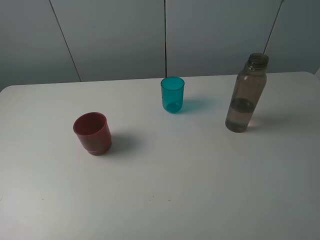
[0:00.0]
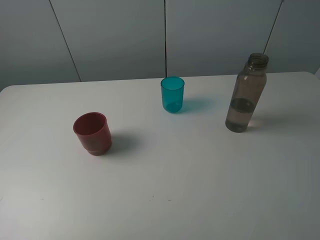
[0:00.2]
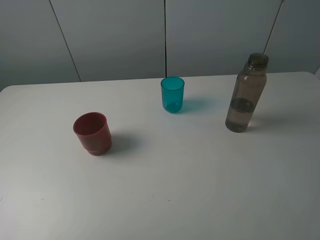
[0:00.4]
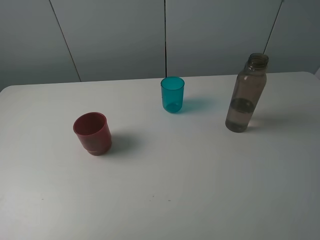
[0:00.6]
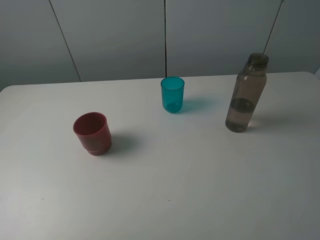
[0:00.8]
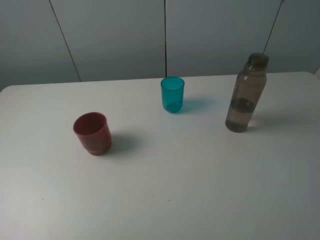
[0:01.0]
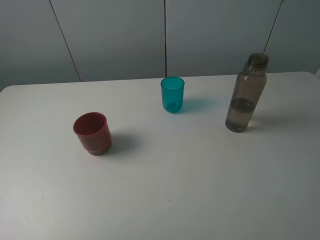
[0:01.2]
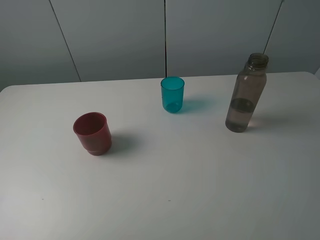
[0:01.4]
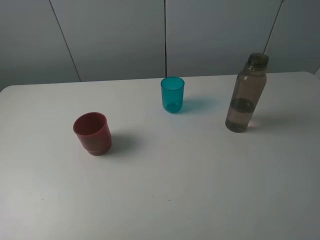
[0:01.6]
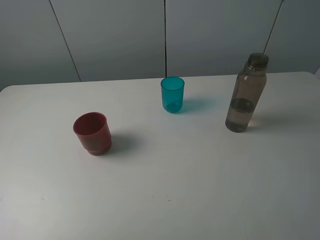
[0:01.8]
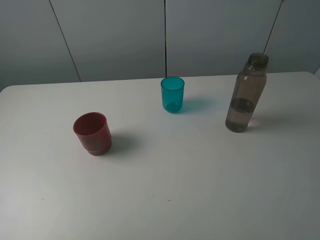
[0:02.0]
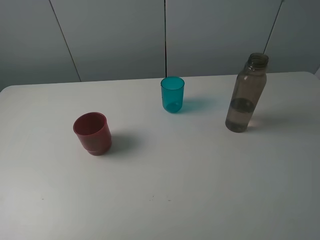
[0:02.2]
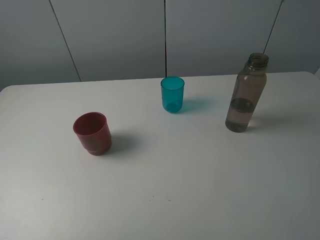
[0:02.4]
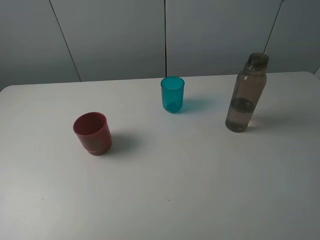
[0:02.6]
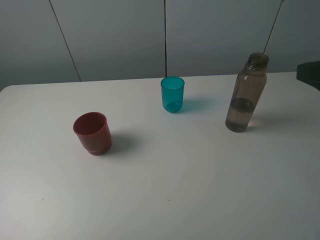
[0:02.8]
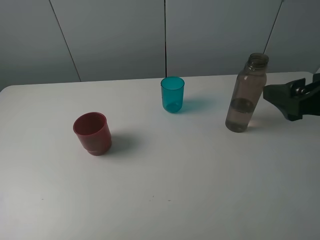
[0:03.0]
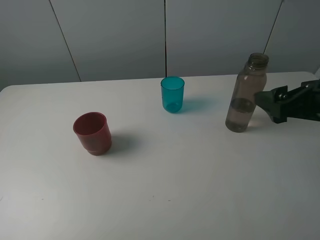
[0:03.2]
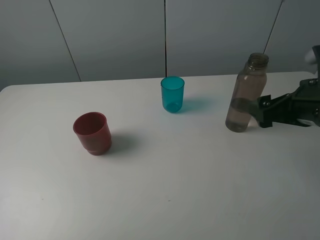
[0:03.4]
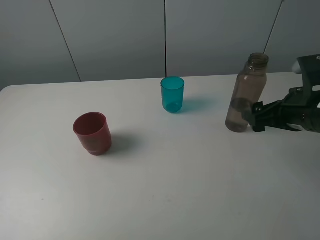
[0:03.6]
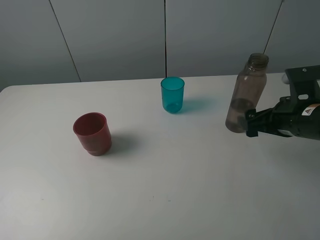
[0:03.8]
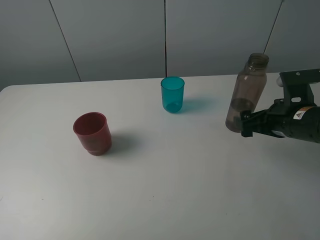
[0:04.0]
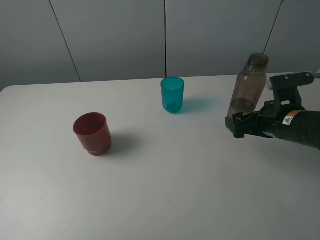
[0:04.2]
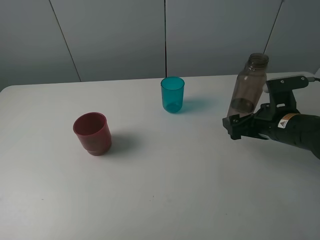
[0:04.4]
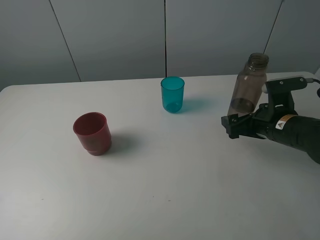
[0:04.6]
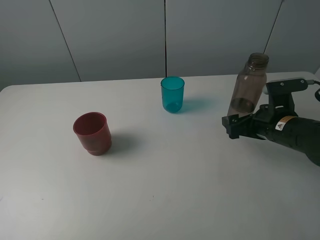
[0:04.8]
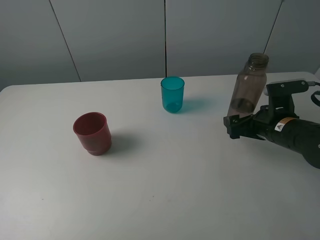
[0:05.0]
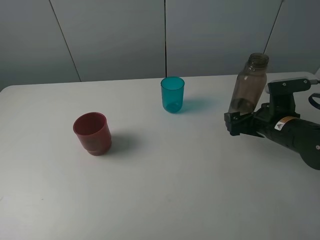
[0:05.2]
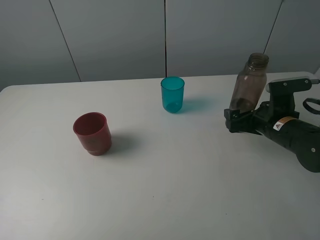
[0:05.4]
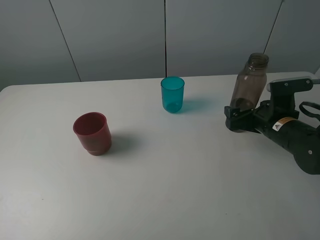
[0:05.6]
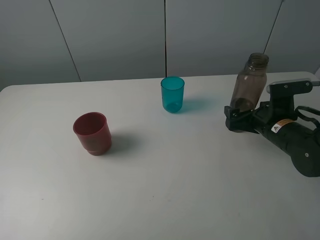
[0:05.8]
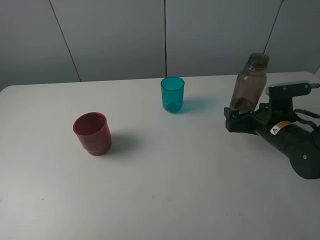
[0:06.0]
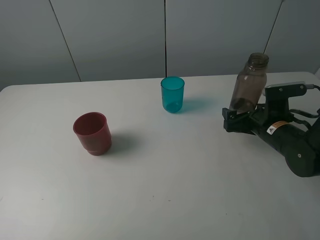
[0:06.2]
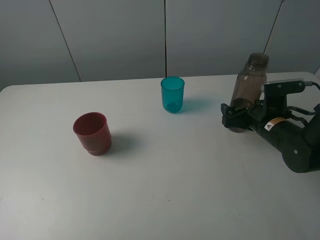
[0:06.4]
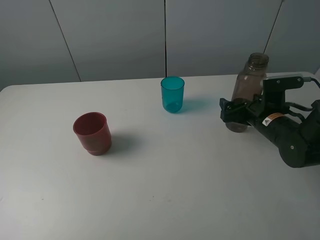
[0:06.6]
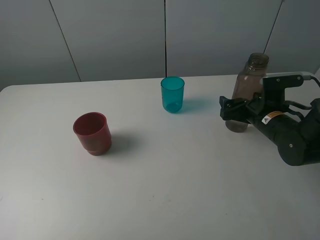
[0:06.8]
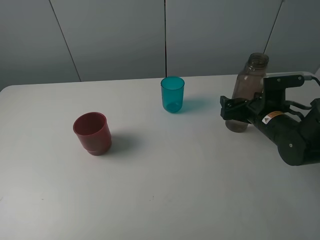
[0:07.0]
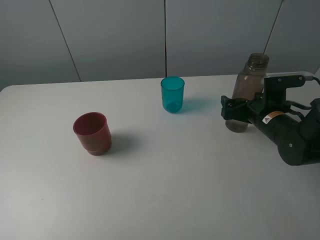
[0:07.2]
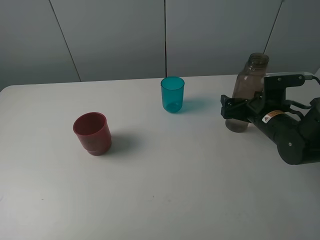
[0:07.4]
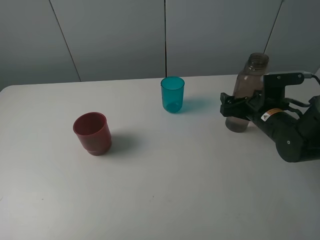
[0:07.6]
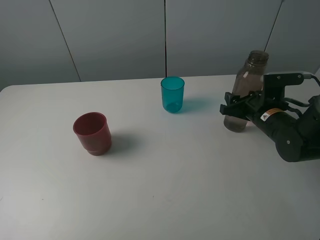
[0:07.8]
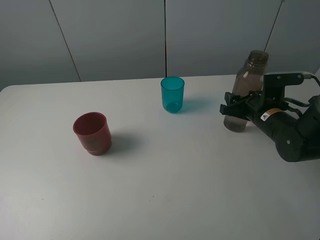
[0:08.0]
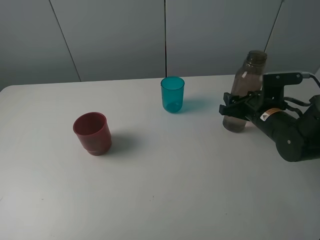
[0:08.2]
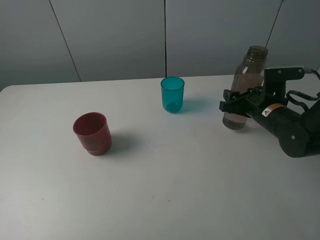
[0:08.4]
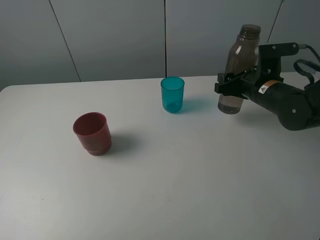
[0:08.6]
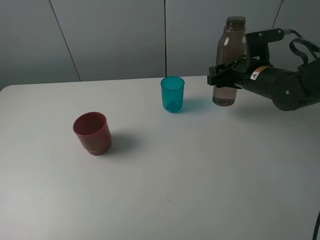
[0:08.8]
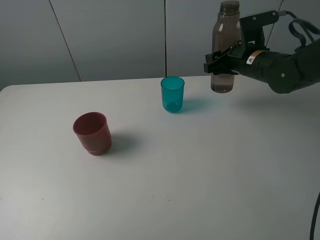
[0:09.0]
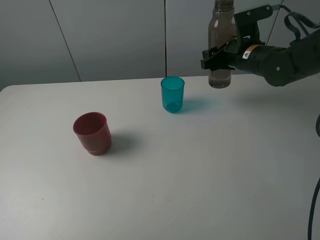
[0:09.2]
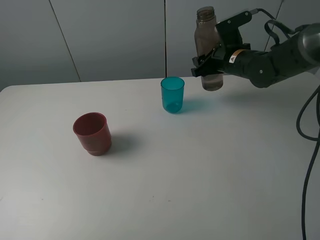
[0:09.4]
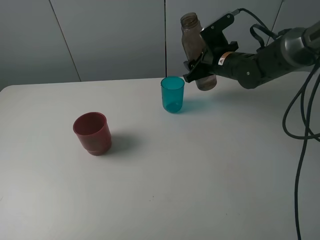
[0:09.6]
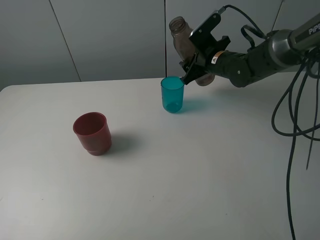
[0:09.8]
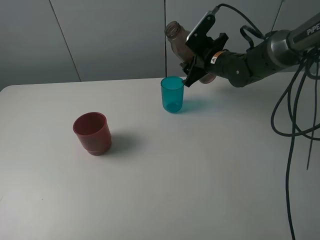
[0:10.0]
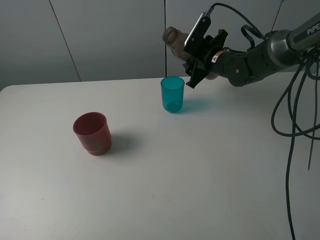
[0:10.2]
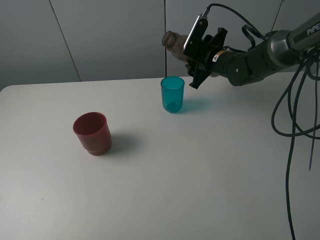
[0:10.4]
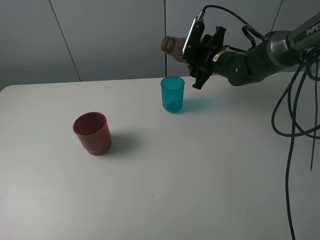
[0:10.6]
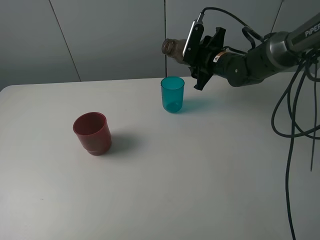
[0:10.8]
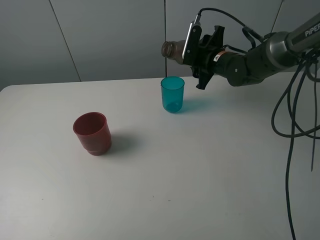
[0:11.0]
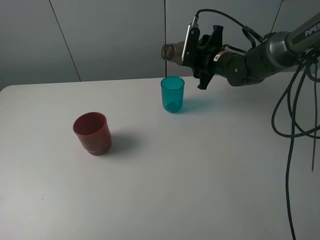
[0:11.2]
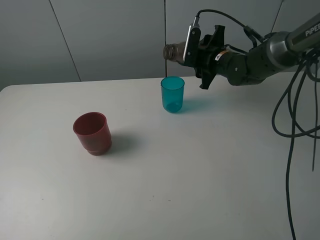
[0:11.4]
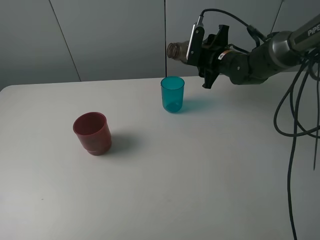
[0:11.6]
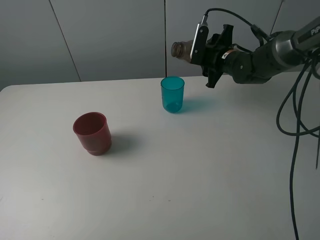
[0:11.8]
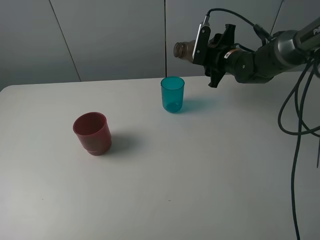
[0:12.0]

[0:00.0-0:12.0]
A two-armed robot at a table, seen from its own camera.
Task of the whole recording: pick up the bottle and pour water into the cup, then pick up the cup containing water and pour it into another cup.
Step, 0:00.0 to 0:07.8: Grasp the brown bottle with the right gripper.
0:00.0 to 0:01.6: Neither gripper changes place.
0:01.6 to 0:03.0: The right gripper travels forward by some 15 cm.
0:03.0 to 0:04.4: The right gripper is displaced downward and forward by about 15 cm.
0:04.4 to 0:06.0: The grippers stay close to where they were, moving slightly.
0:06.0 to 0:07.6: There are only small adjustments of the grippers.
0:07.6 to 0:09.0: The right gripper is displaced upward and forward by about 10 cm, and closes.
0:09.0 to 0:10.4: The right gripper shifts approximately 5 cm to the left and forward.
0:10.4 to 0:12.0: The grippers stay close to where they were, moving slightly.

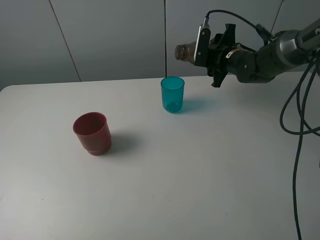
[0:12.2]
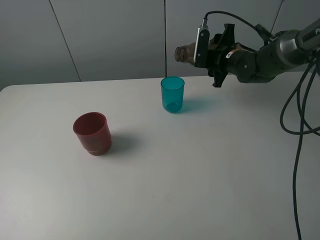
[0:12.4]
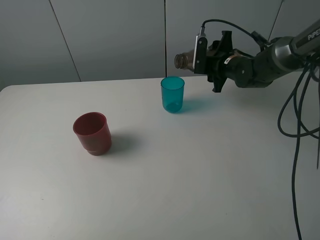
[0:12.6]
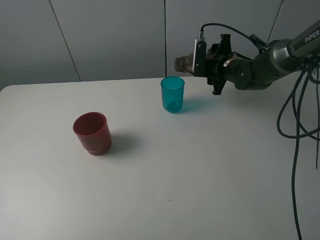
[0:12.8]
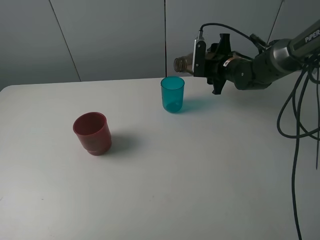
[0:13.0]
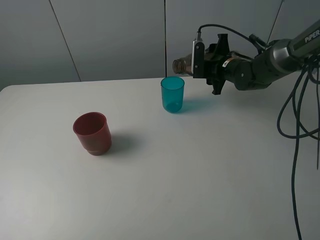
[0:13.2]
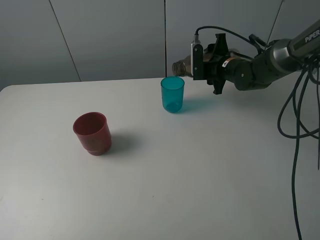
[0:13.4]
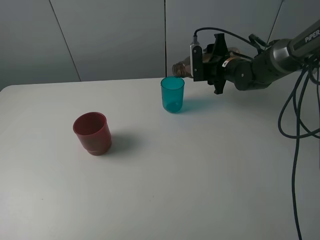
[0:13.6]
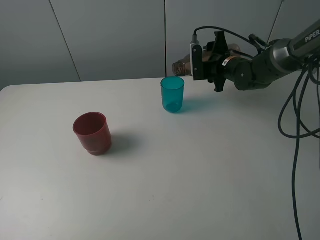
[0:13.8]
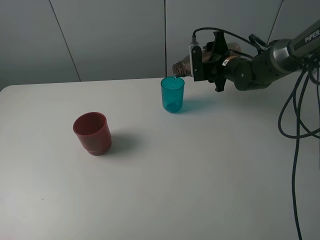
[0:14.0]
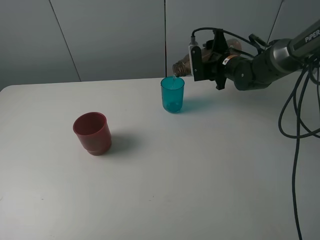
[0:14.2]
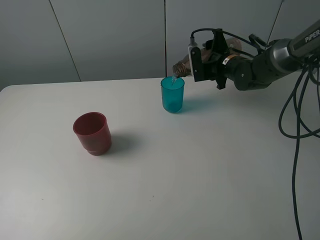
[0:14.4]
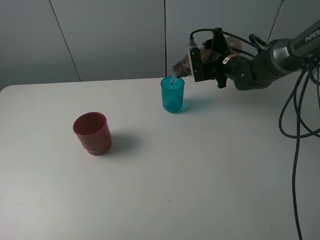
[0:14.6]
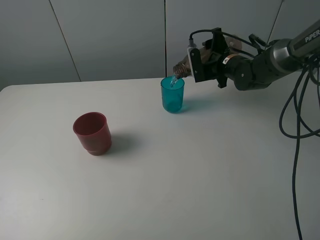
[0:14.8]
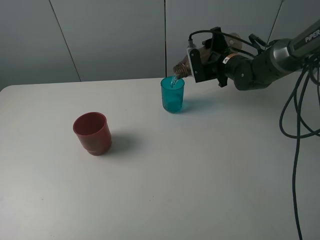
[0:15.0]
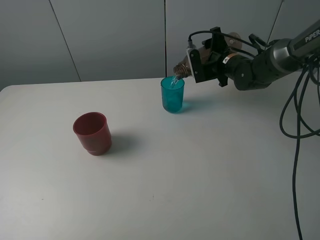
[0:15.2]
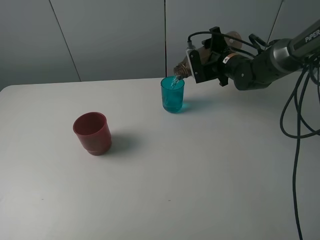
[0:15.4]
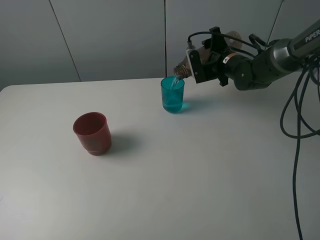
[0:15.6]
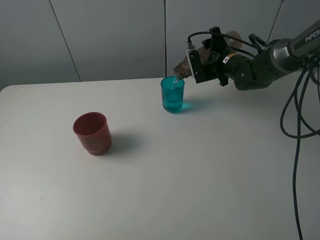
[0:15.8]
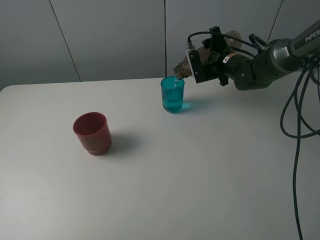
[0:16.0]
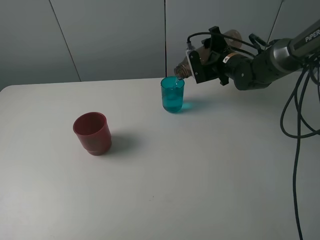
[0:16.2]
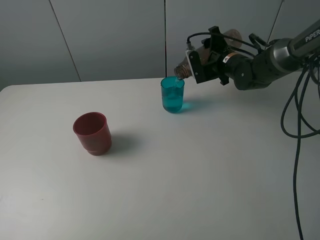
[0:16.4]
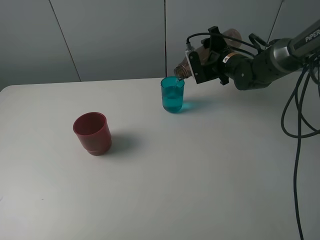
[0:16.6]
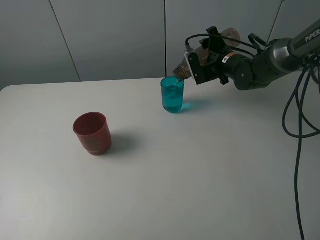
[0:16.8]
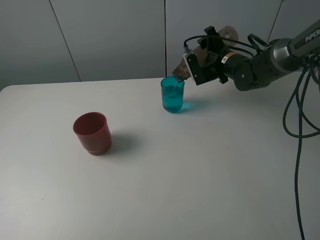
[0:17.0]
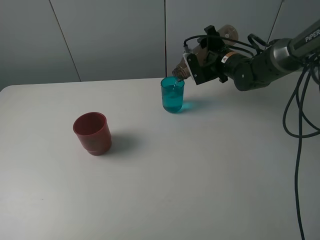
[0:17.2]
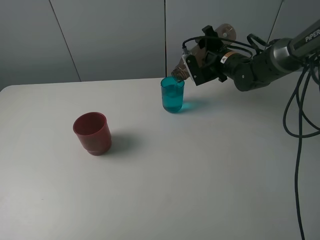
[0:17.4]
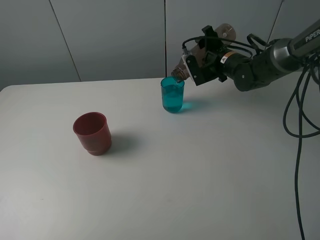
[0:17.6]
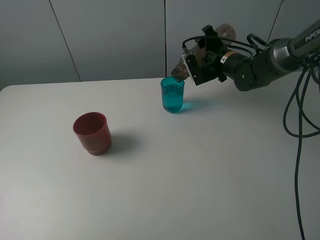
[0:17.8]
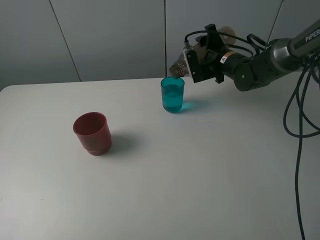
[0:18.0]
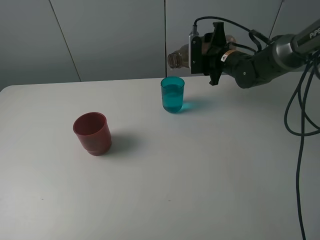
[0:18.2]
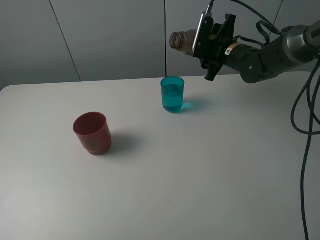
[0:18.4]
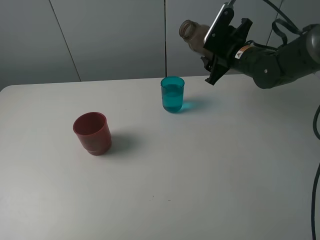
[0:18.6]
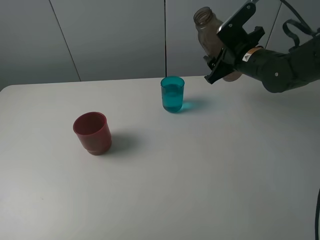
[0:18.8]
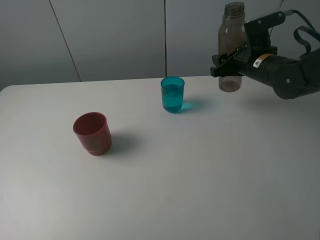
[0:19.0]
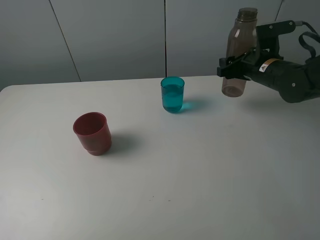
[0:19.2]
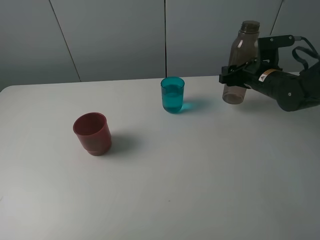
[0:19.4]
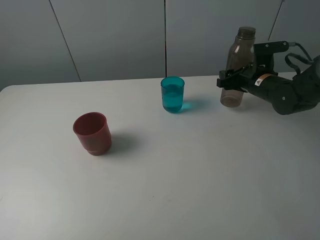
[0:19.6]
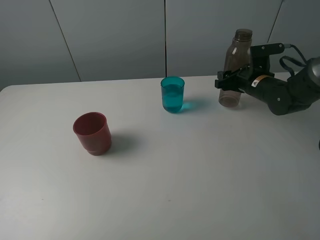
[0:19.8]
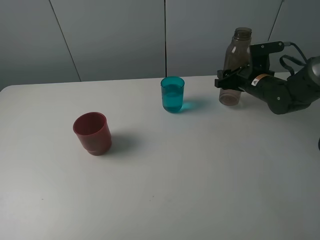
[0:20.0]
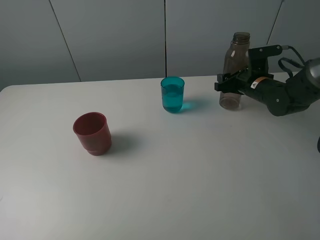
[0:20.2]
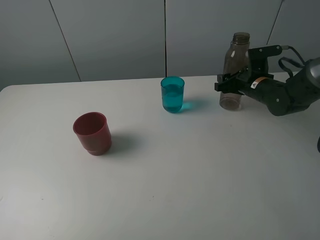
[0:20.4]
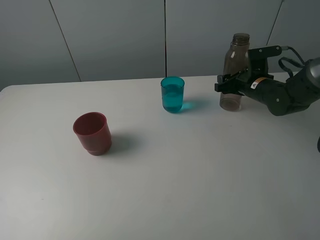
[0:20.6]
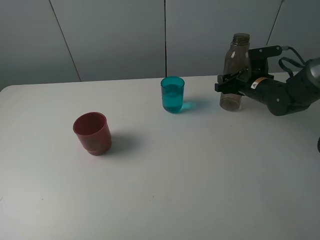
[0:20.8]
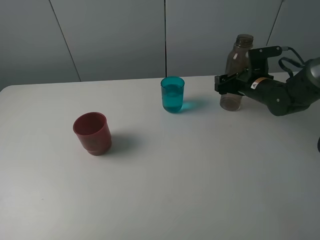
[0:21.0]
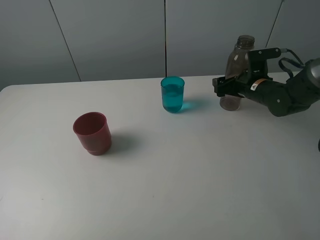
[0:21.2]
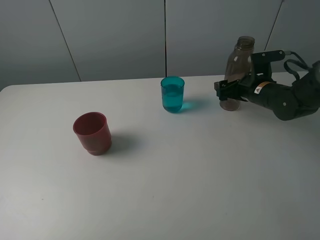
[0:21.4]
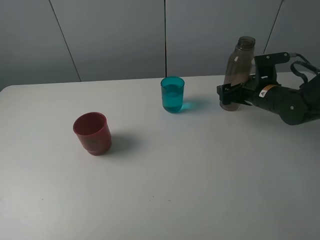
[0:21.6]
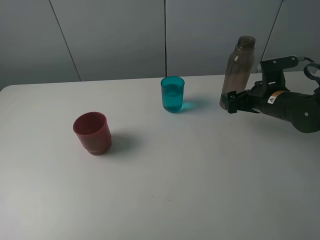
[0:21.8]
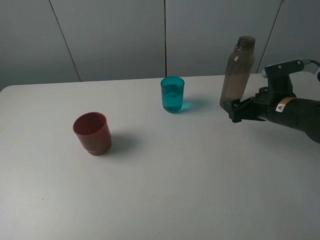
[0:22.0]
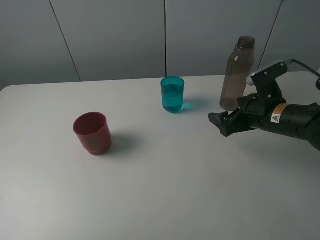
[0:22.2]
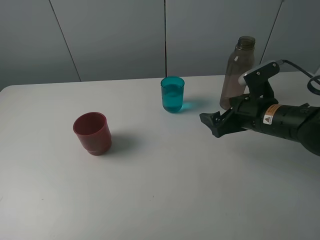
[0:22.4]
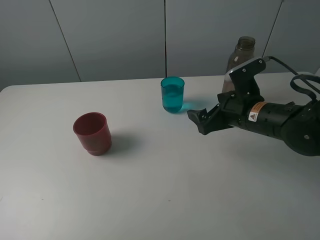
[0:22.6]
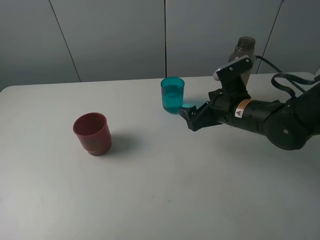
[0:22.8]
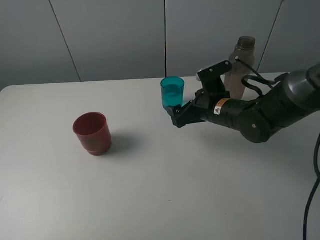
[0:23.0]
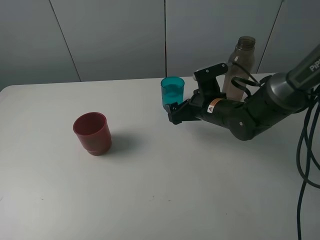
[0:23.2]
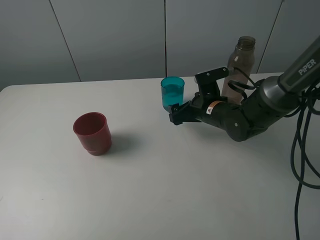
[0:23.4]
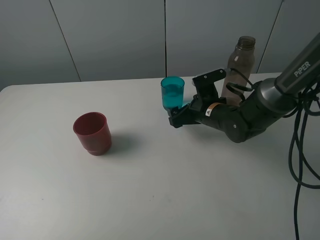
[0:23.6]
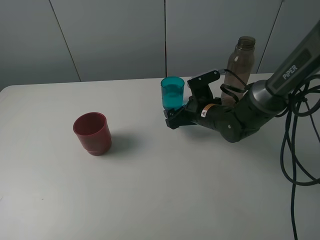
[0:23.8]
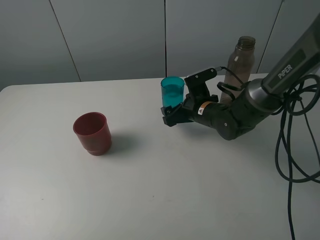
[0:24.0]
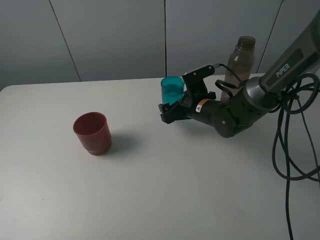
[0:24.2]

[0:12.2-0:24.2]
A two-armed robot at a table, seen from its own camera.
Task of the whole recording: pick up the bottle and pour water into the cup, then pick up the cup containing water and pour it into another cup.
Step, 0:12.2 to 0:18.0: Pour water from brown bottle to blue cup with the right gripper.
Step, 0:18.2 to 0:21.2: Place the brown bottle with the right gripper.
0:12.2 to 0:13.8: The grippers move only a little.
0:13.8 to 0:15.2: The grippers make only small movements.
0:15.2 to 0:16.6: Both grippers stay about where they are.
0:18.2 to 0:19.8: The right gripper travels to the right by about 5 cm.
0:19.8 to 0:21.2: The right gripper opens its fingers.
0:21.2 to 0:22.6: The right gripper travels backward and to the left by approximately 15 cm.
0:22.6 to 0:24.2: The right gripper heads forward, to the left and downward, covering roughly 10 cm.
